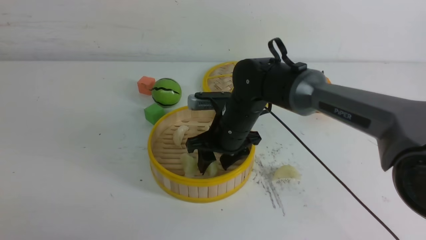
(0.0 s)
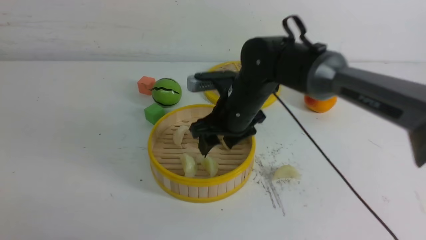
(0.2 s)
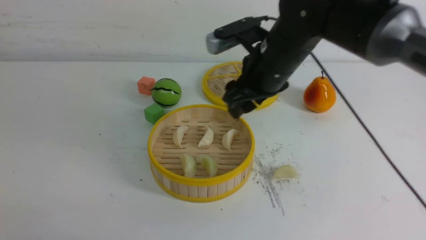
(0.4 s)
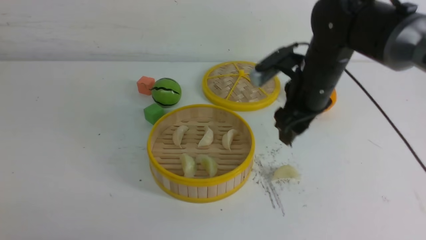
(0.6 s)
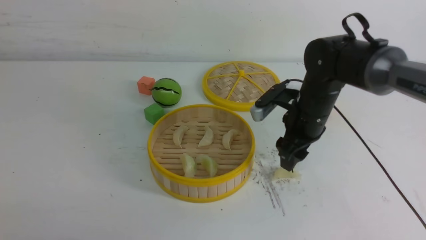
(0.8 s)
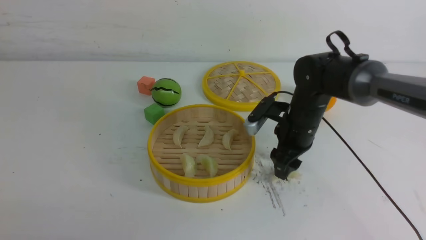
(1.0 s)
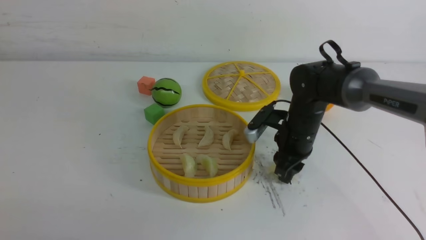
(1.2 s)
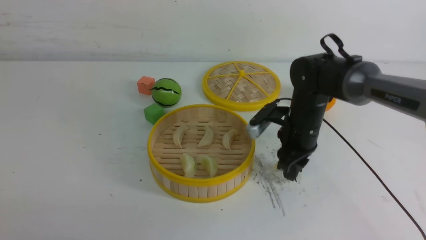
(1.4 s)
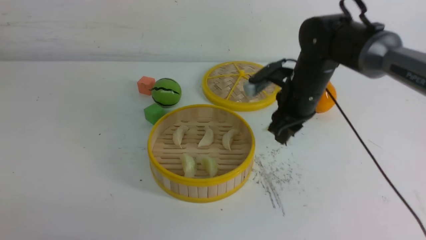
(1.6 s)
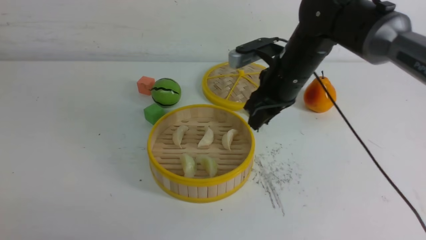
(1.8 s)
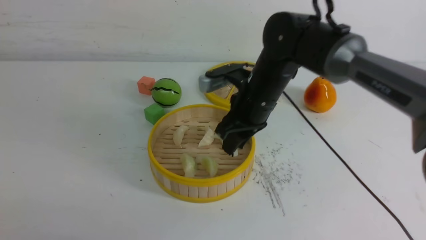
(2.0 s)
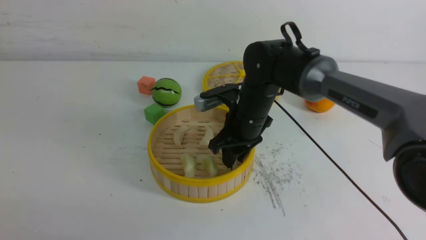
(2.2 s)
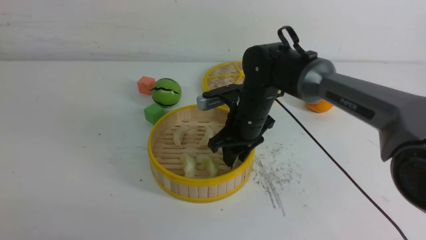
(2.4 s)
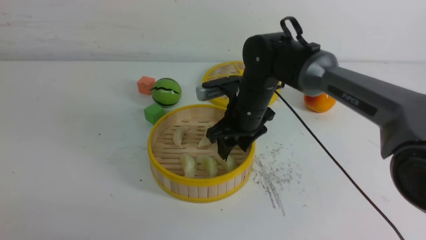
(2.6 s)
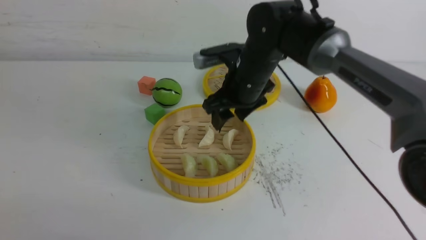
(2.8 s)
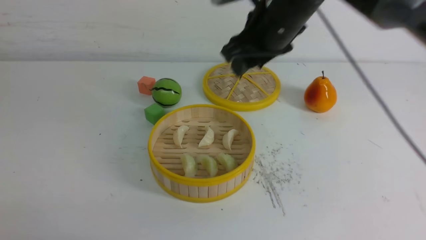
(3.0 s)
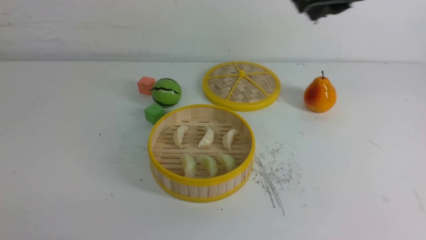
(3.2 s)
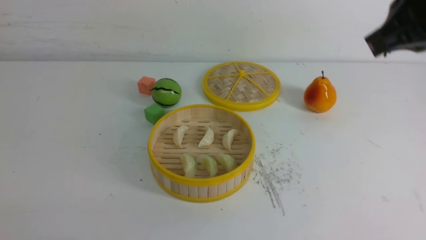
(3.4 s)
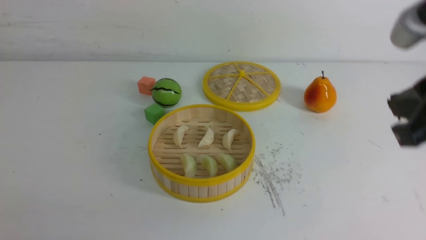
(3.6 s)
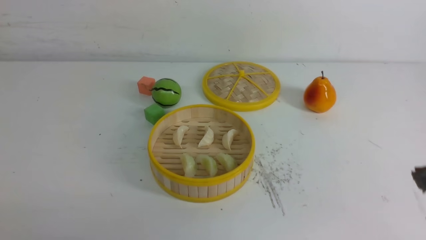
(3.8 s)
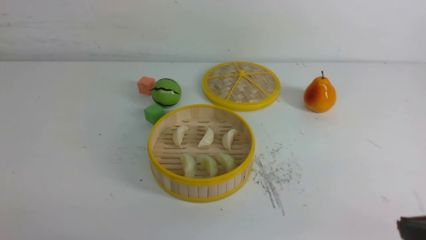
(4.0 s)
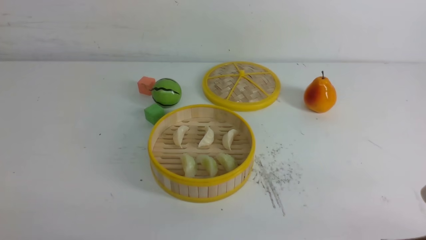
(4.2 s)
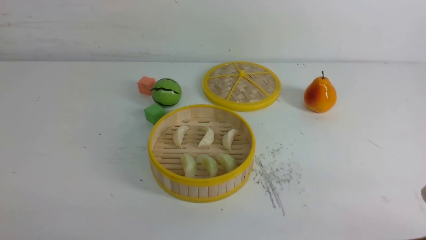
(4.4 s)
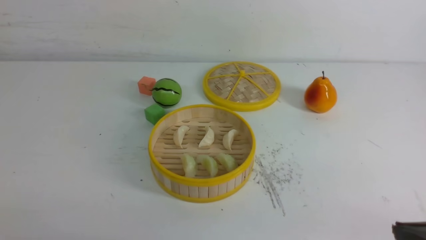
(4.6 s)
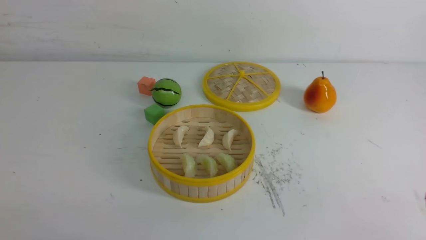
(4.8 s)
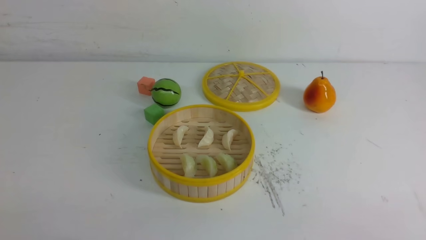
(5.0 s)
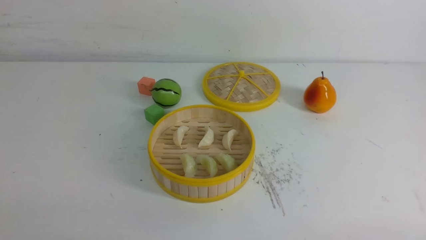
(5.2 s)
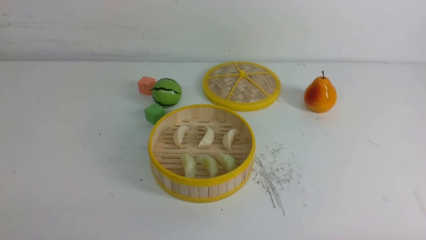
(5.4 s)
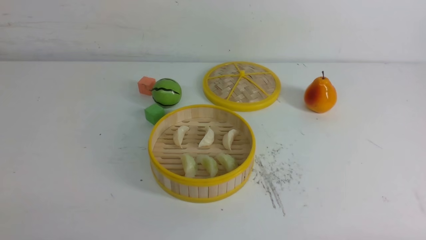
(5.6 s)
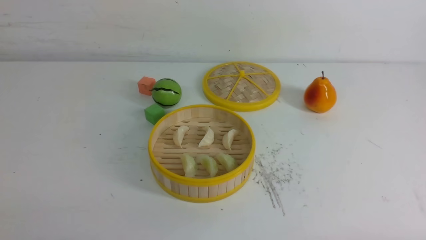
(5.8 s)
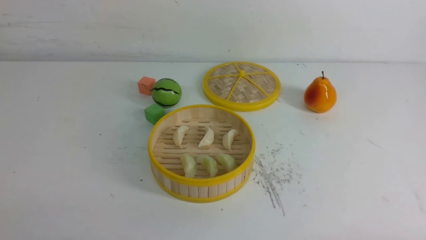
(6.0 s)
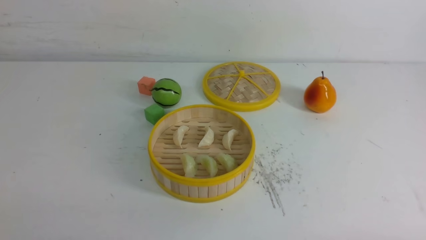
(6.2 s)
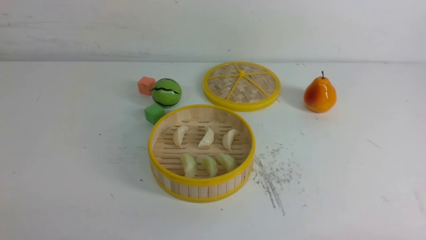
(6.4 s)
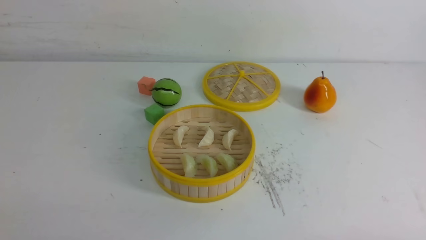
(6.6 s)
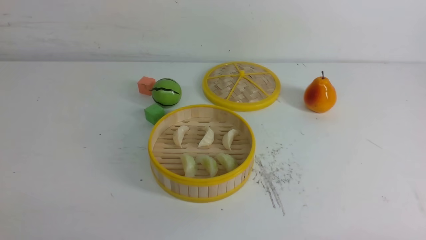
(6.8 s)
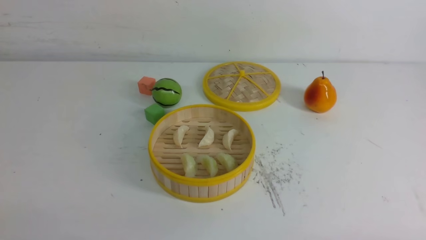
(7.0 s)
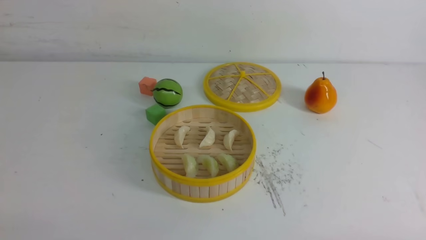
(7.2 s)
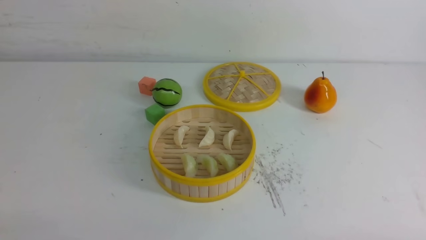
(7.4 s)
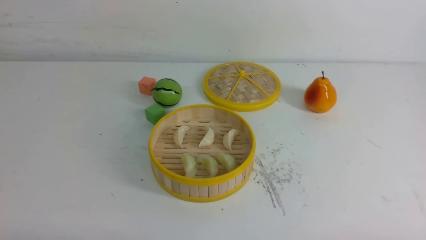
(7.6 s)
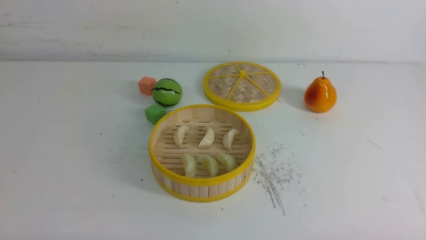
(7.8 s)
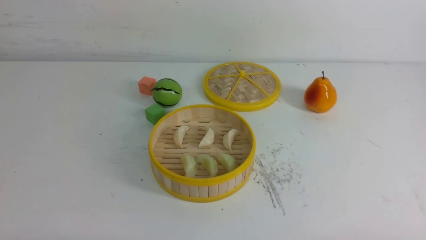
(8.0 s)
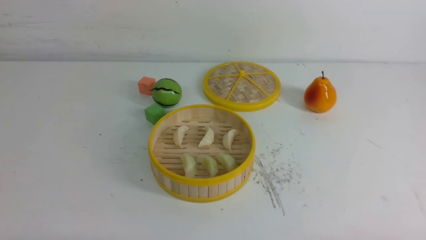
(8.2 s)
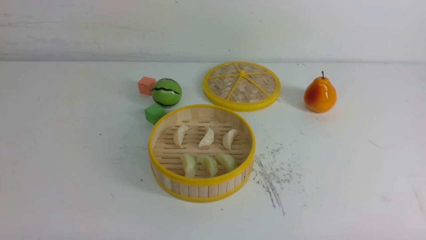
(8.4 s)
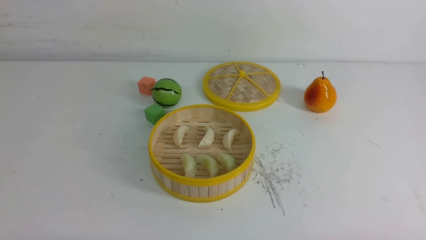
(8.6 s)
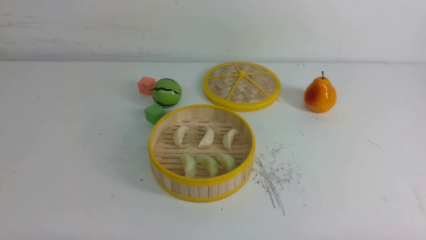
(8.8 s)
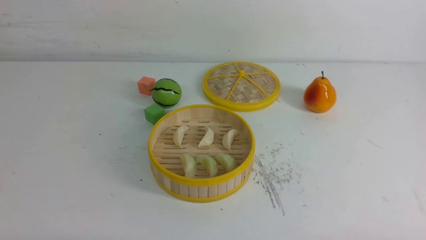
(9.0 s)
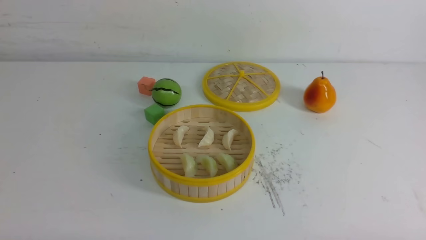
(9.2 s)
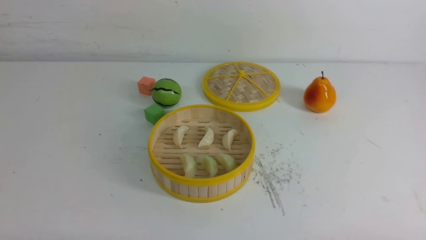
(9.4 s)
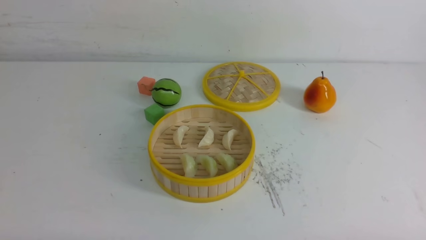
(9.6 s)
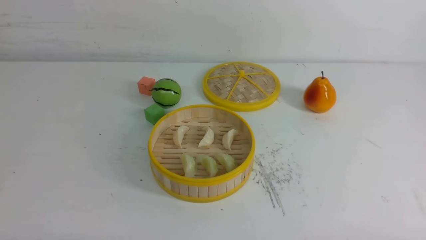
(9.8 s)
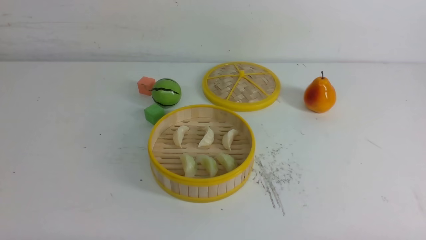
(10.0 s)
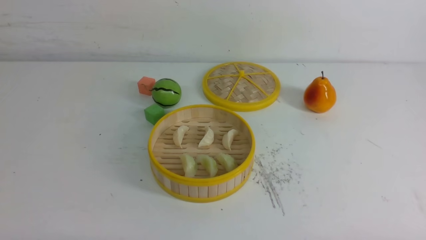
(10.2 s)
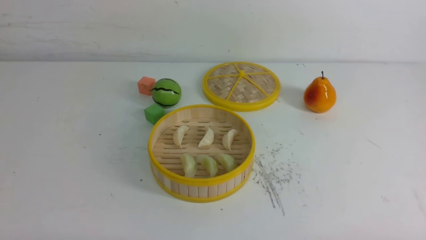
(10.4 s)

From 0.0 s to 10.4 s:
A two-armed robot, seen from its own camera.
Task of the whole recording: put the dumplings into the steamer on the white table.
Step, from 0.4 s to 1.4 s: use the right arm to grab a dumpling.
Step, from 1.6 s to 2.6 s: use the right arm to put the dumpling into the steamer.
From 0.0 s to 1.4 s: The right gripper travels to the right by some 10 cm, and closes.
From 1.4 s to 3.0 s: The right gripper swings up and down, about 20 cm each way, with 2 reversals.
From 3.0 s to 4.4 s: The right gripper goes some 30 cm backward, to the right and downward, and closes up.
From 9.0 s to 10.4 s: Neither gripper changes place.

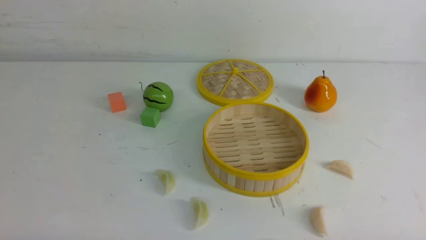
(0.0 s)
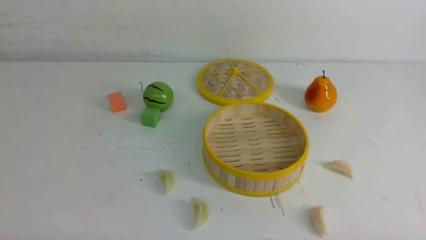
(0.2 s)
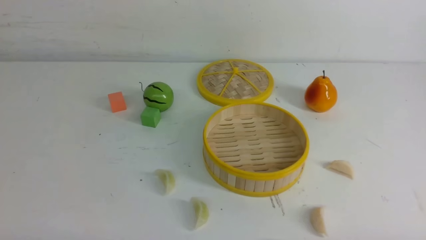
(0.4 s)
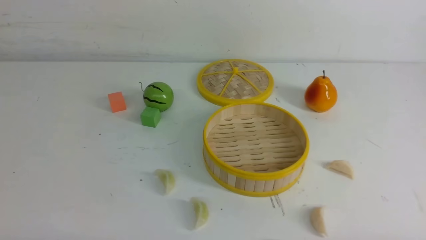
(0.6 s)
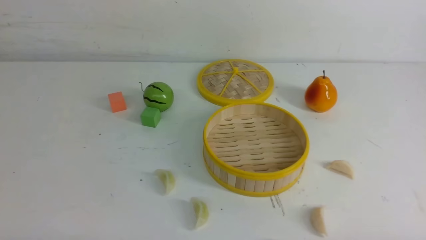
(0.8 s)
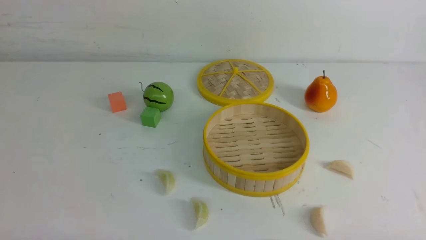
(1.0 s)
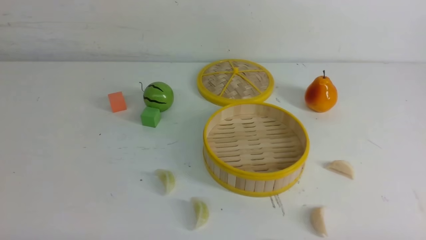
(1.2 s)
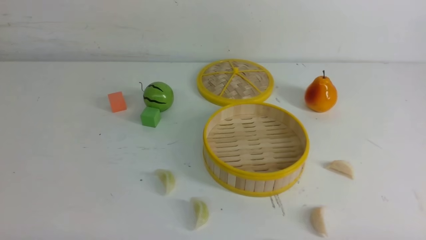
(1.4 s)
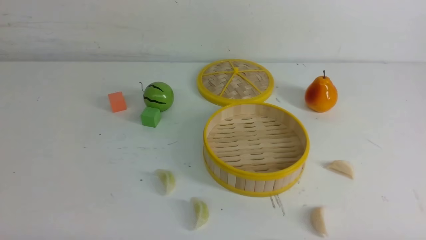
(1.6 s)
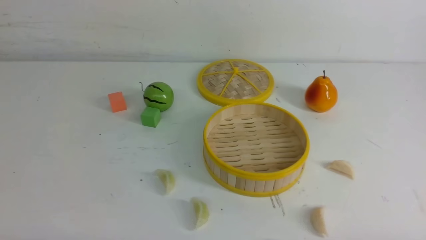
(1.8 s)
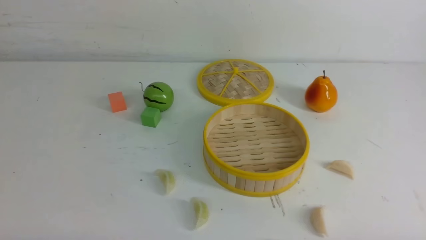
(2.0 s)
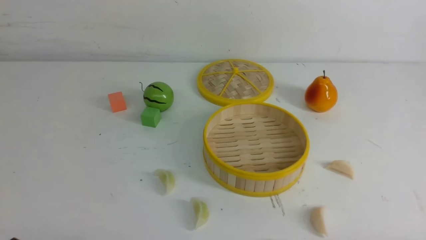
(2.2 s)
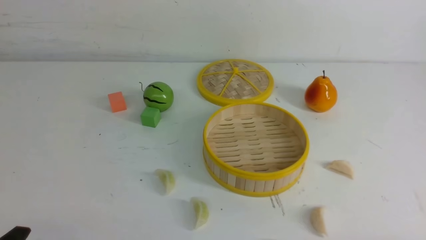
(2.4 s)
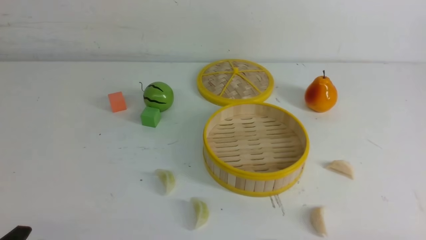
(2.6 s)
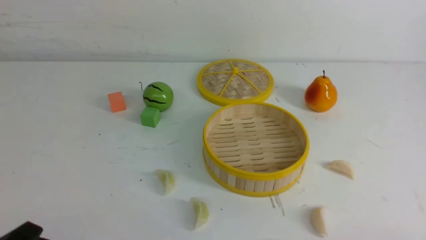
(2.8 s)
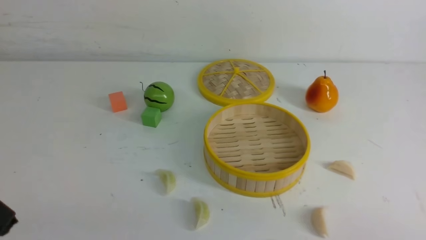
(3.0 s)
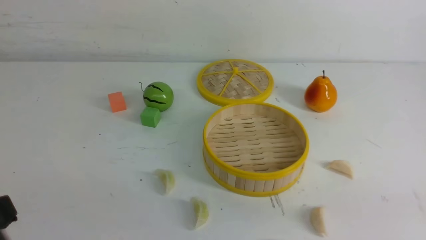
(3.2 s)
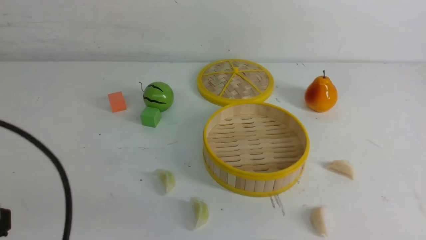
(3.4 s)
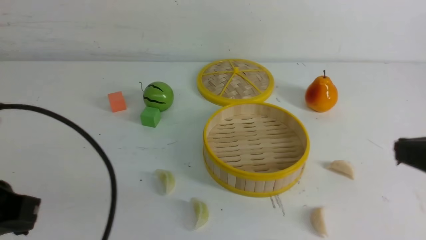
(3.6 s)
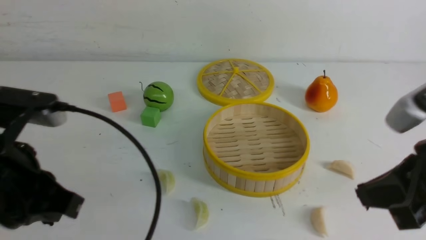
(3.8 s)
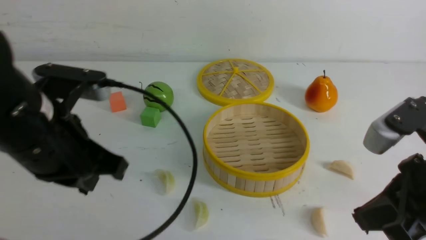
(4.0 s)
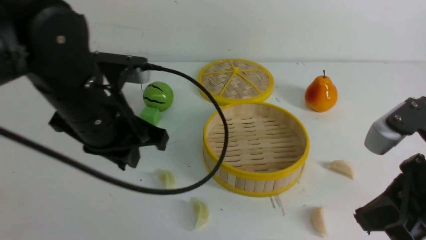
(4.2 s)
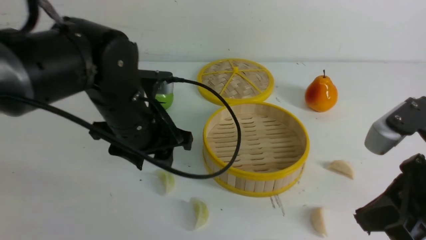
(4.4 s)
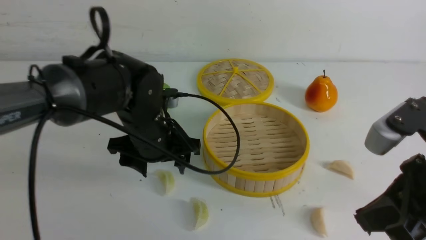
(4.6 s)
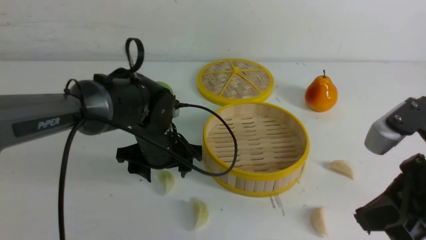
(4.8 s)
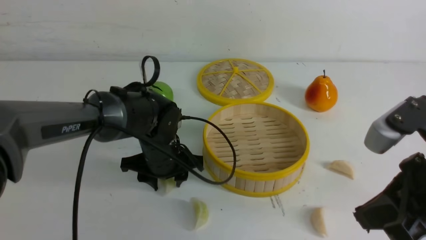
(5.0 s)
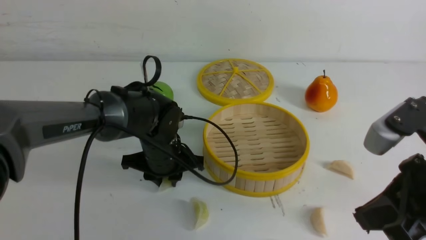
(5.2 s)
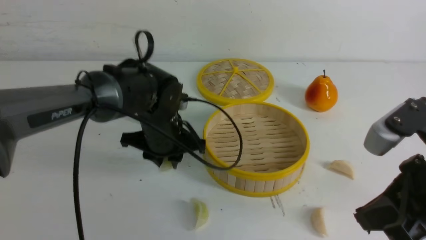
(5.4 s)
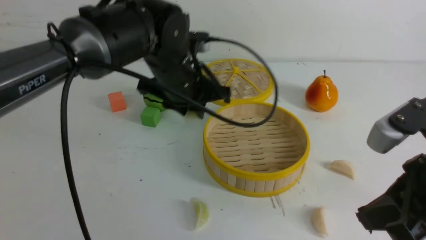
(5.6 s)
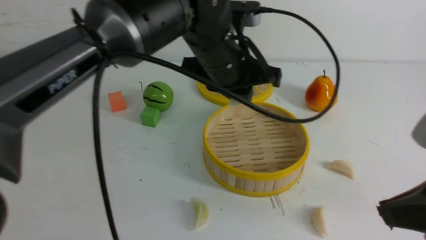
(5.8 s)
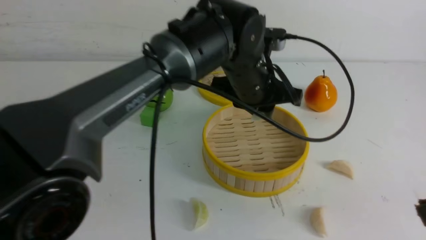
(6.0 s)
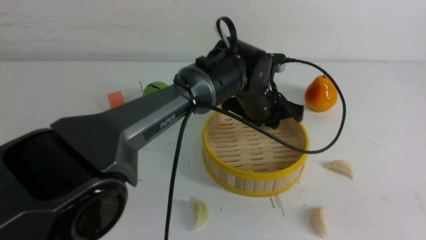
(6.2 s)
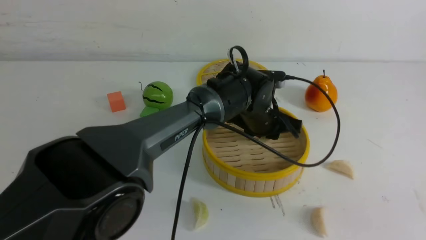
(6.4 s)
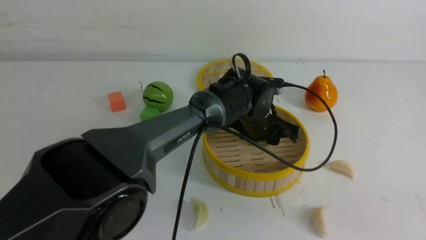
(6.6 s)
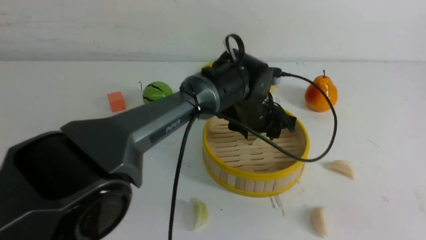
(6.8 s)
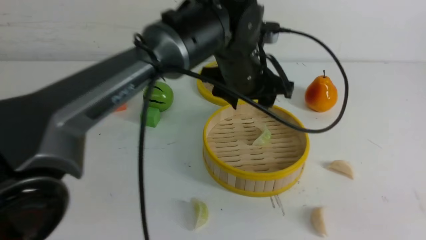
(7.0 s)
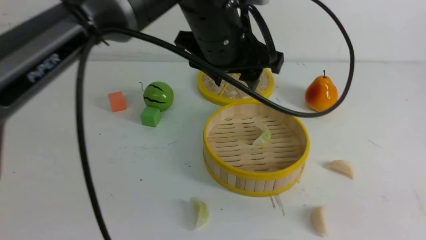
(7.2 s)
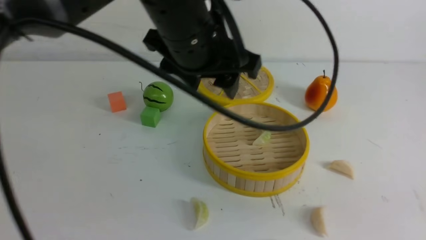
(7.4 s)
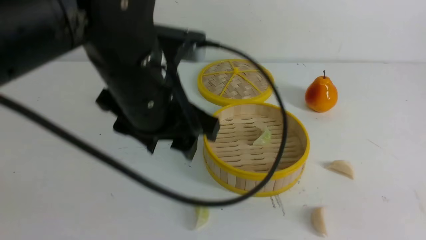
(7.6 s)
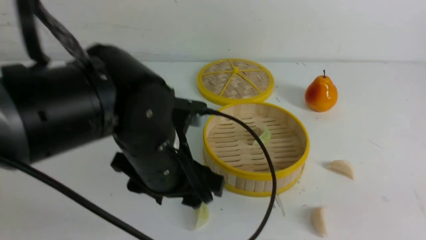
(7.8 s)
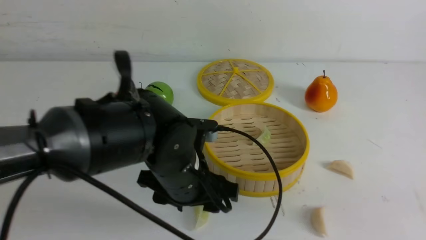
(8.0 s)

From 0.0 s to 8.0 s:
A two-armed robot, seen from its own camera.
Task of the whole recording: put the dumplings into the steamer on the white table.
Step, from 0.0 s to 5.4 s: use the left arm to grab a dumpling.
Step, from 5.6 s to 7.0 s: use the left arm to put the dumpling into the steamer.
From 0.0 s to 1.6 s: Neither gripper changes place.
From 3.2 s to 4.8 s: The left gripper travels forward, to the right and downward by about 35 cm, and opens, while the right gripper heads forward and to the left, covering approximately 15 cm.
From 4.8 s to 6.4 s: The right gripper heads backward, covering roughly 10 cm. Meanwhile the left gripper moves to the right, some 15 cm, and closes up.
From 6.4 s to 8.0 s: The left gripper moves backward and to the left, some 20 cm, reaches roughly 20 cm upward, then returns, and opens.
